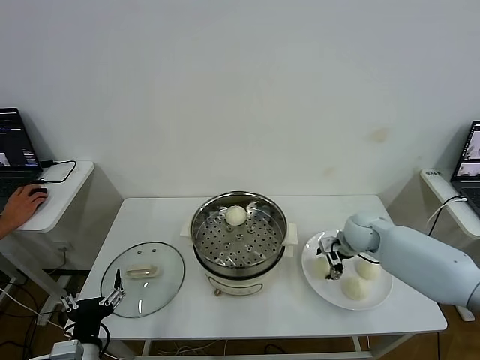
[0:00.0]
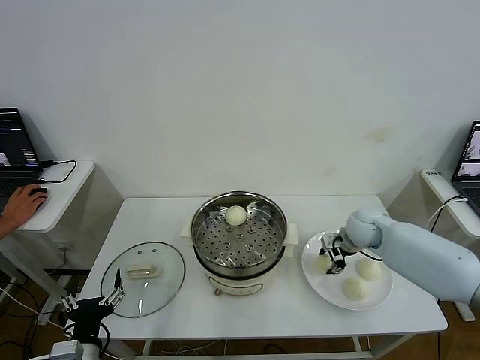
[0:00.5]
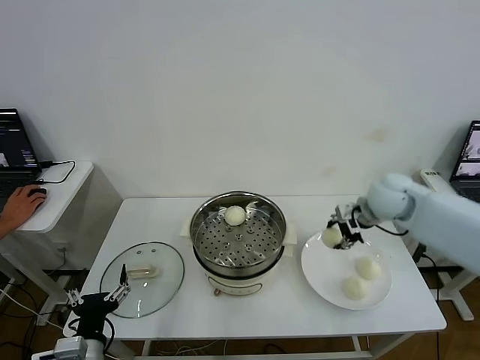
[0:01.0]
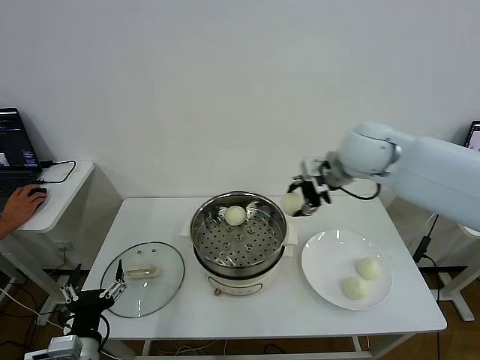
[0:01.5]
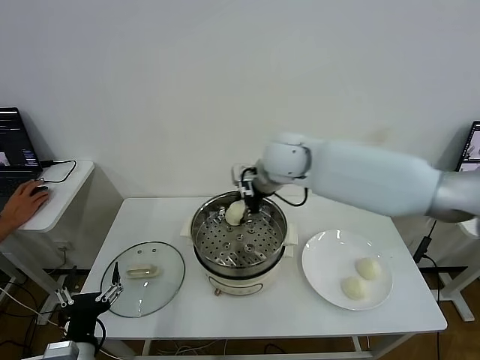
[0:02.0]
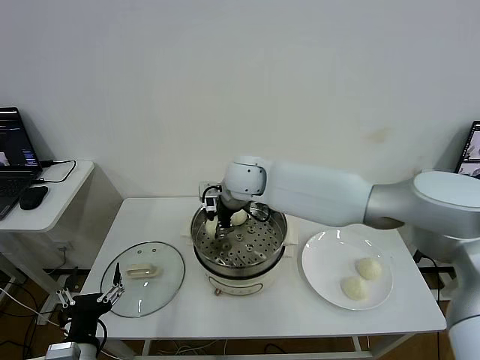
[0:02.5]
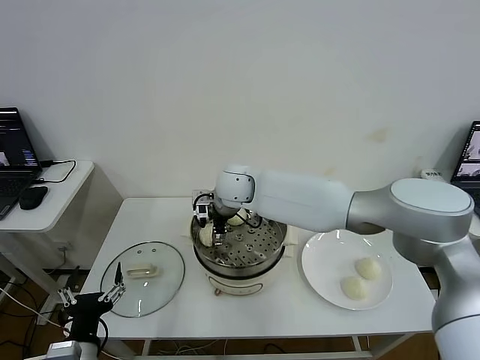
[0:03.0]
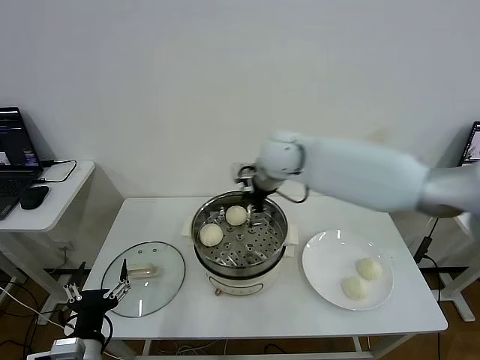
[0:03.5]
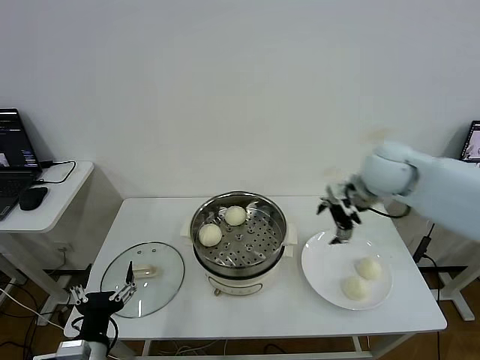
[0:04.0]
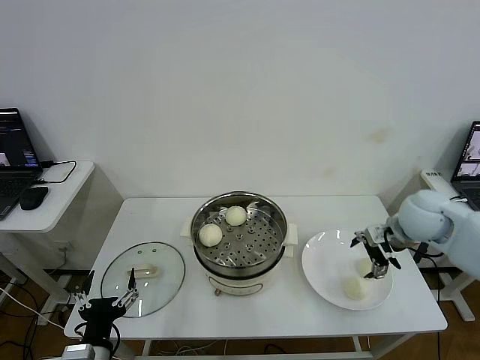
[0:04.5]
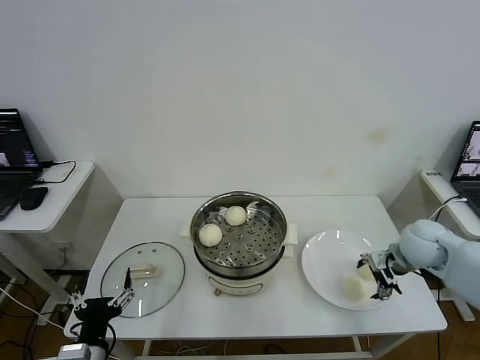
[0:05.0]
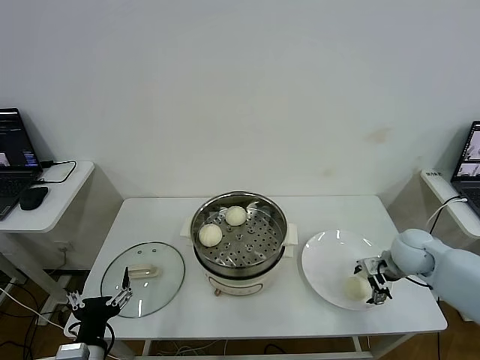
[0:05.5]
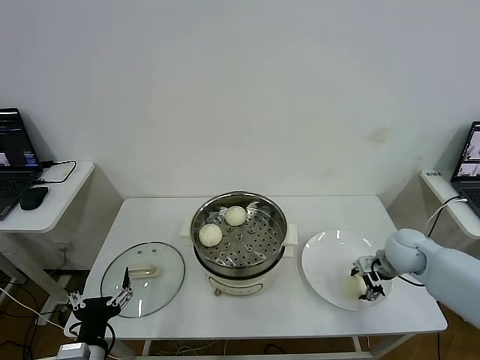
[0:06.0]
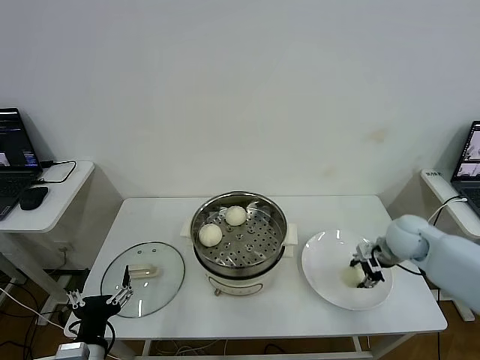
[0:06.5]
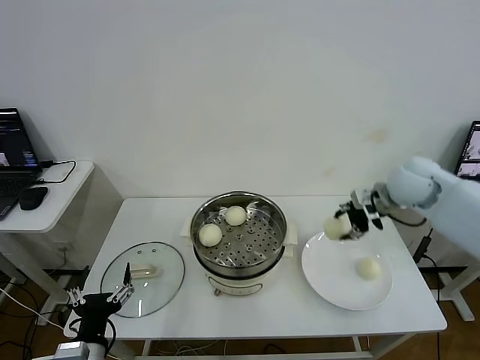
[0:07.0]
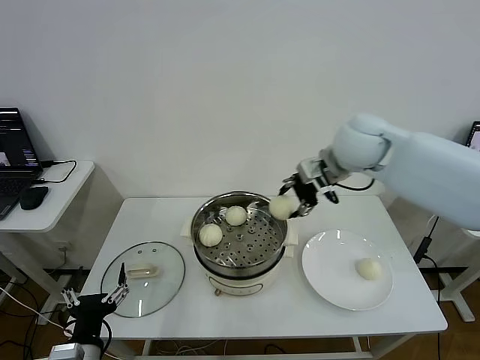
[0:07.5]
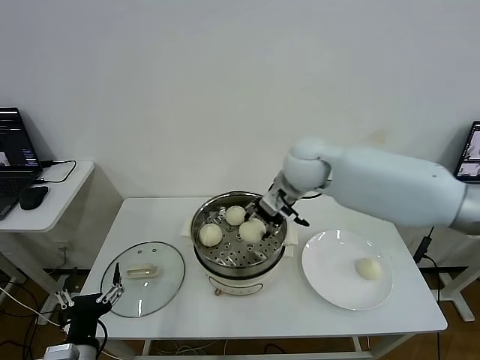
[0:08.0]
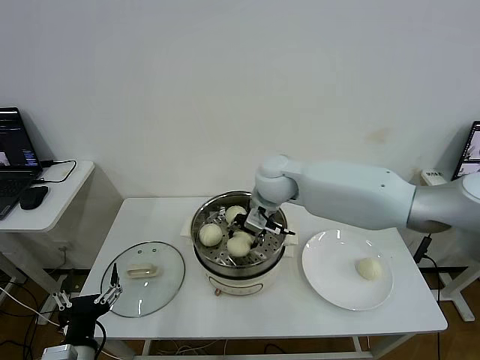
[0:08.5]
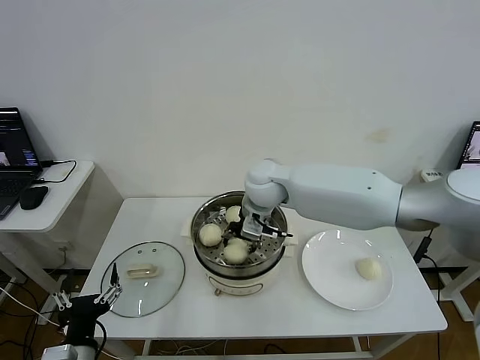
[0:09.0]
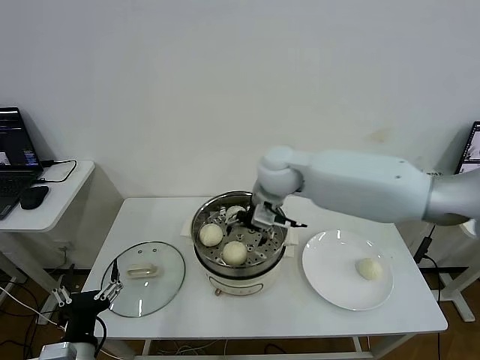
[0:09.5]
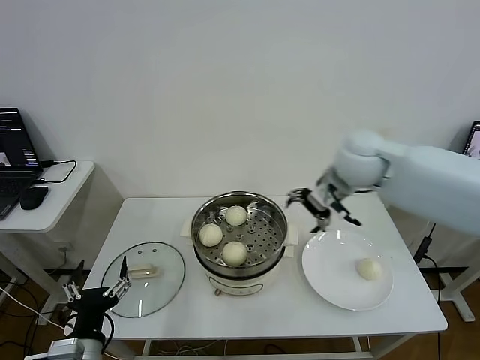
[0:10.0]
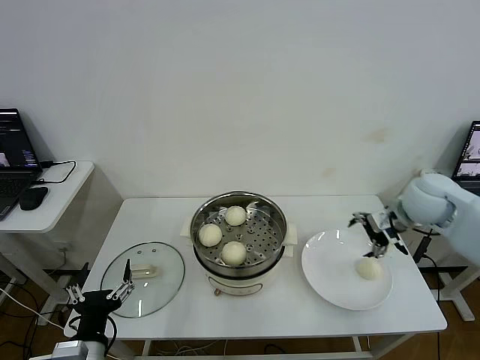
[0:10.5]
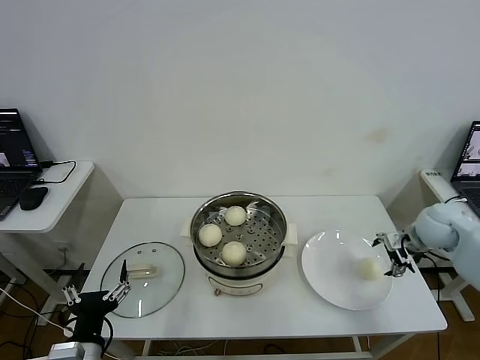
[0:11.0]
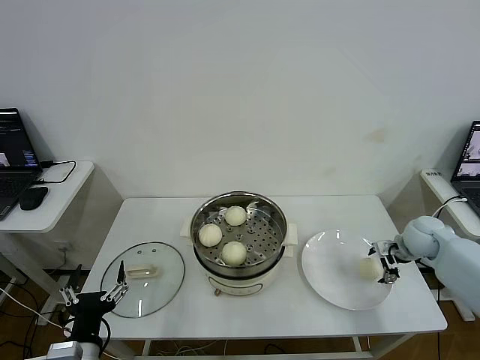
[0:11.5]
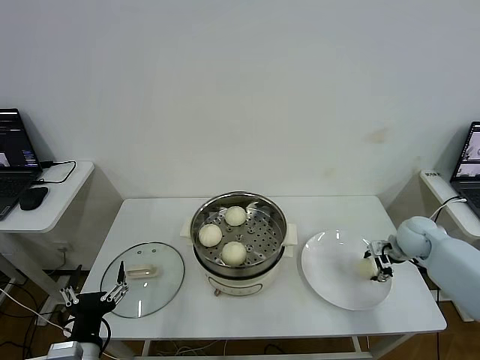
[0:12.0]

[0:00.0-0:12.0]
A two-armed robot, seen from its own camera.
Step, 0:00.5 to 0:03.0: Place the baozi on the steamer with right gripper.
Step, 0:03.5 to 0:06.0: Grasp the baozi in the plate with right gripper.
Step, 0:06.5 to 0:09.5: Place the baozi on the steamer with right gripper.
0:00.0 to 0:02.0: The right gripper goes roughly 30 cm to the left and upward, and closes its fingers.
0:02.0 to 0:04.0: The right gripper travels to the right by approximately 25 cm, and opens up.
0:04.0 to 0:06.0: The right gripper is displaced downward and to the right by about 20 cm, and closes its fingers.
0:06.0 to 0:08.0: The right gripper moves to the left and upward, roughly 35 cm.
0:08.0 to 0:10.0: The right gripper shifts roughly 10 cm to the right, and opens.
0:10.0 to 0:12.0: The right gripper heads downward and to the right, covering roughly 30 cm, and closes up.

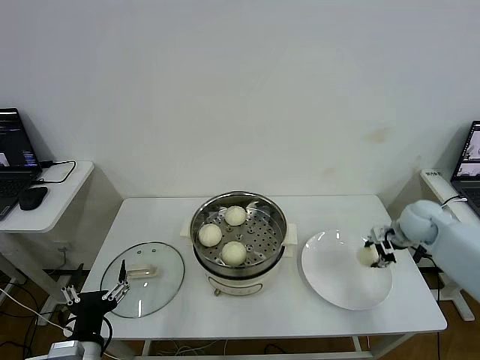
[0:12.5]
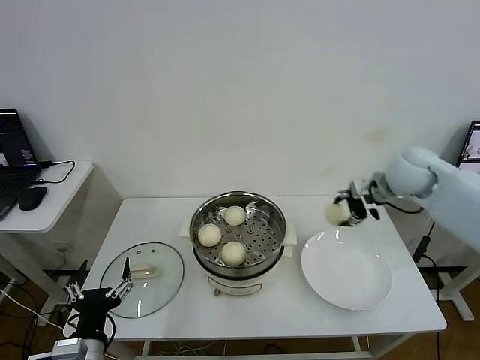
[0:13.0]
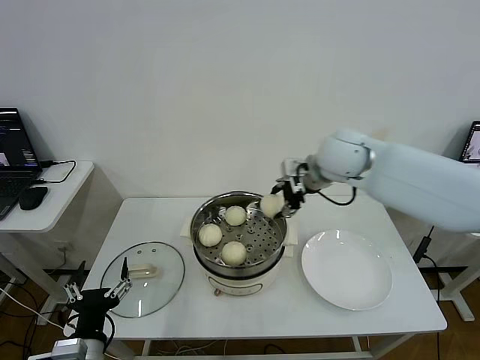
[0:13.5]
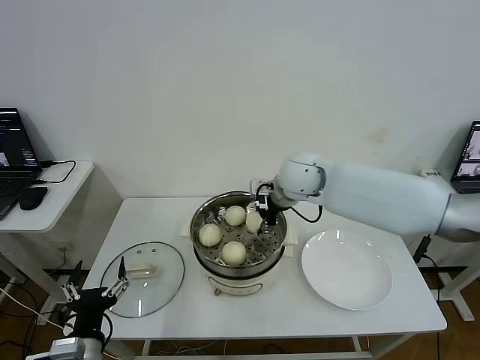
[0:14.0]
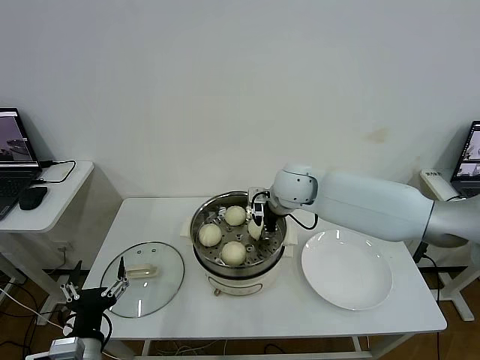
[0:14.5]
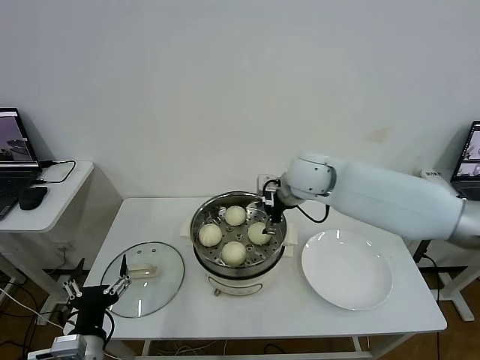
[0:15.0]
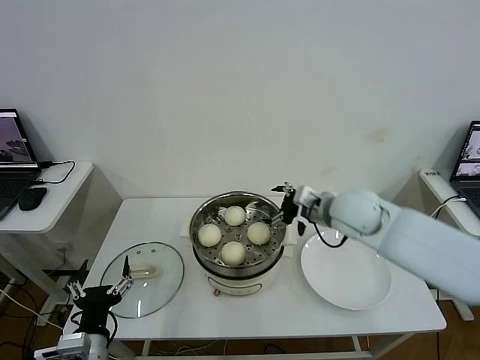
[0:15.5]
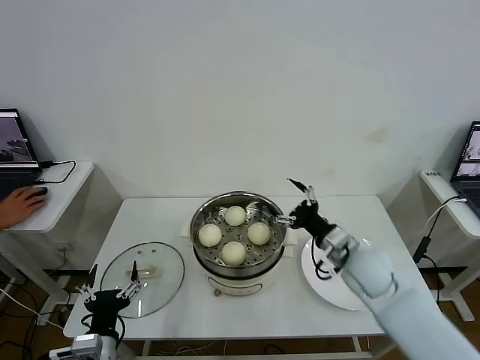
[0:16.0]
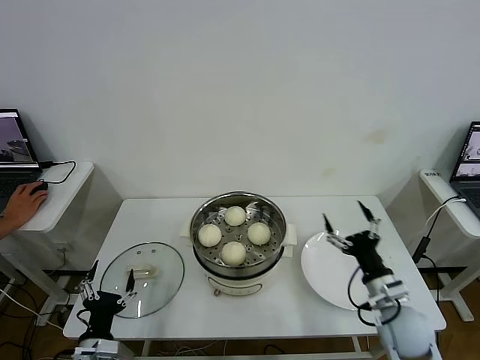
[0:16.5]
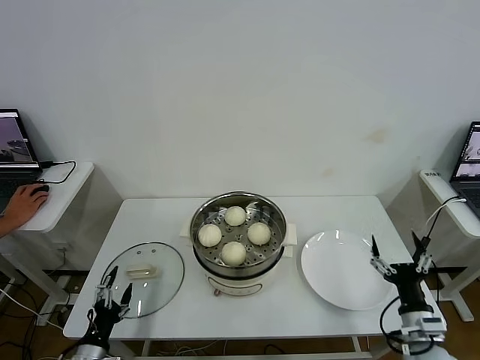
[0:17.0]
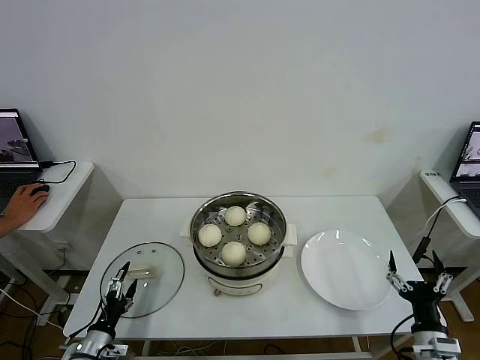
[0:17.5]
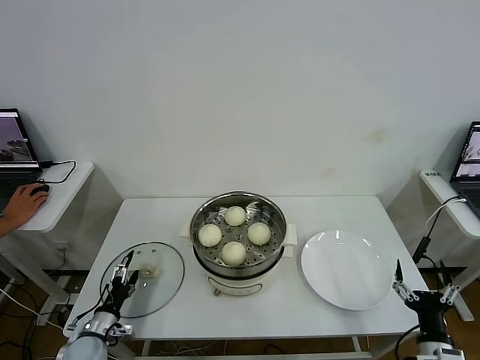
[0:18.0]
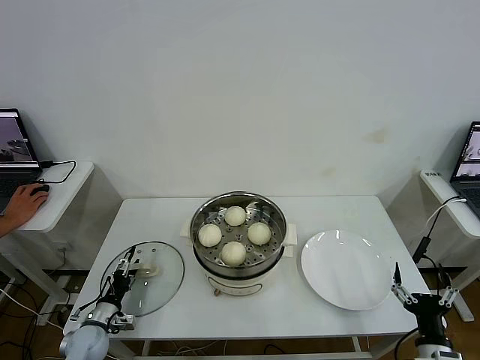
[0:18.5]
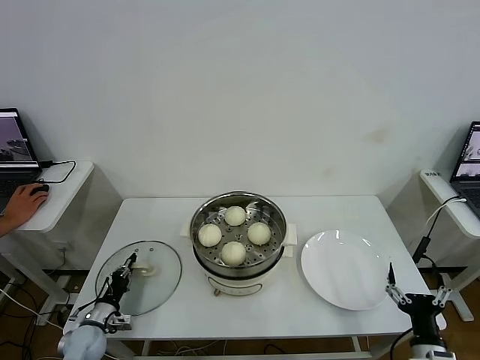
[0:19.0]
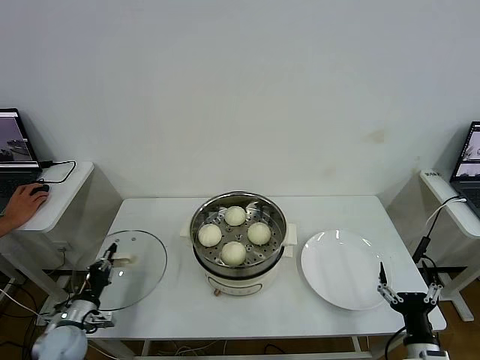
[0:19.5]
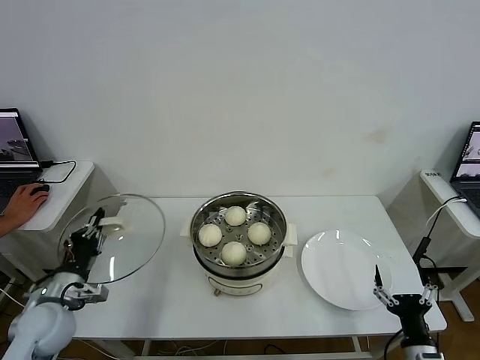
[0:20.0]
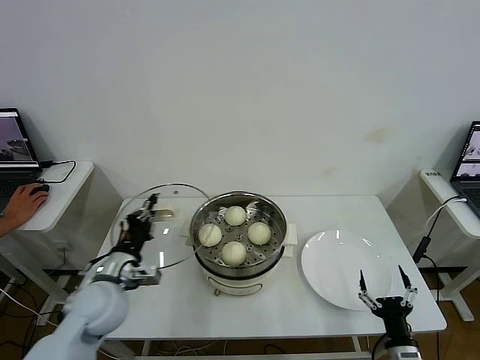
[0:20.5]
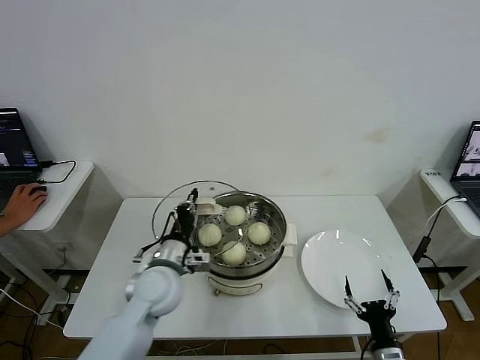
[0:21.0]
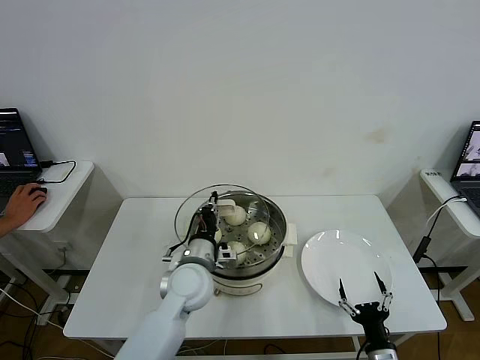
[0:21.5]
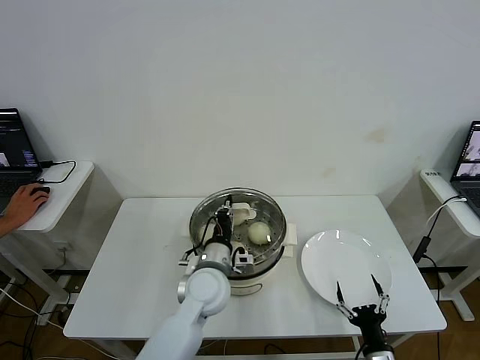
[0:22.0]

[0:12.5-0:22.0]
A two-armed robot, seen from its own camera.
Step, 0:12.5 to 0:15.0: Place the baozi on the steamer with right gripper.
Step, 0:15.5 to 0:19.0: Grasp the pot lid with left gripper.
0:12.5 to 0:14.5: The right gripper shifts some 30 cm to the left.
0:14.5 to 0:16.5: The left gripper goes some 5 cm downward. Meanwhile the right gripper goes approximately 35 cm backward, to the right and downward, and opens.
0:16.5 to 0:18.0: The left gripper travels downward, forward and to the left by approximately 15 cm. The right gripper shifts roughly 15 cm backward, to the right and downward.
0:18.0 to 0:20.0: The left gripper shifts some 15 cm upward, and closes up.
0:20.0 to 0:22.0: The left gripper shifts roughly 30 cm to the right; the right gripper heads downward, covering some 5 cm.

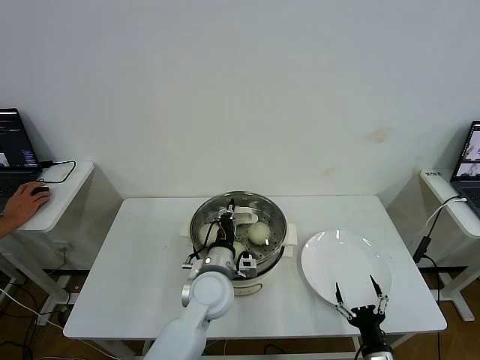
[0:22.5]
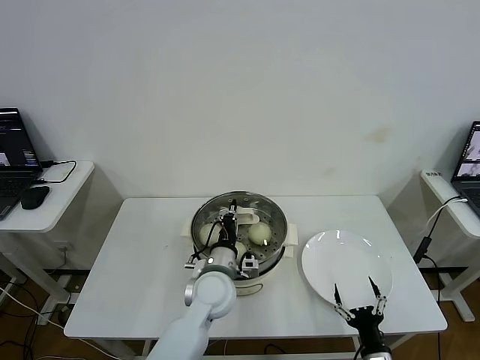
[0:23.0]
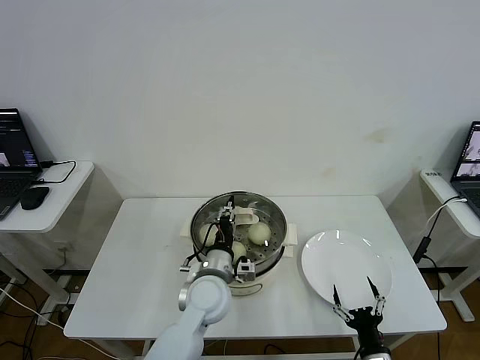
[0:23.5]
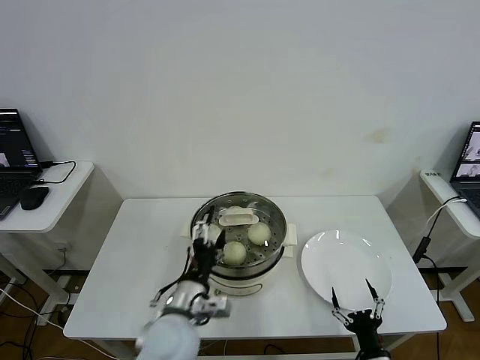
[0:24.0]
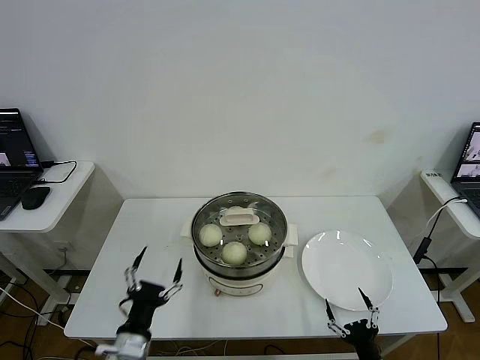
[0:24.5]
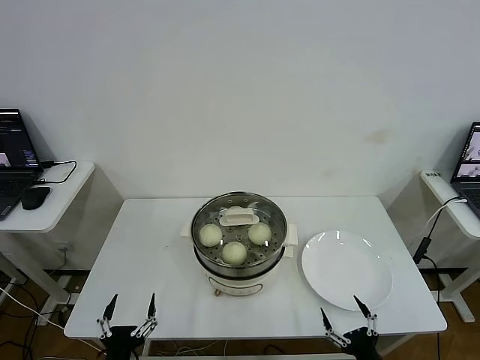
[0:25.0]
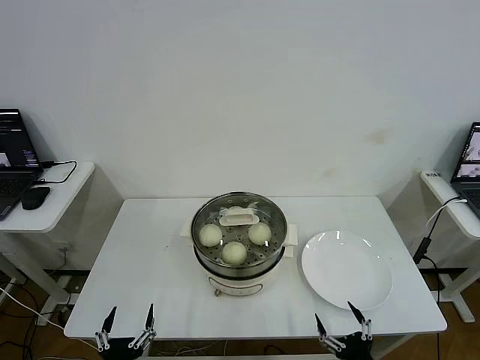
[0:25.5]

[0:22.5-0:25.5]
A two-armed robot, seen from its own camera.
0:22.5 to 0:24.0: The left gripper is displaced backward by some 10 cm, and opens.
0:24.0 to 0:25.5: The left gripper goes some 25 cm backward, to the left and downward; the right gripper shifts about 5 cm upward.
